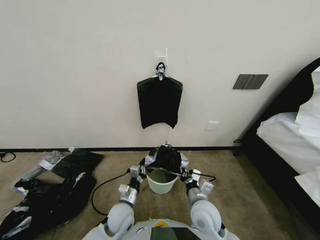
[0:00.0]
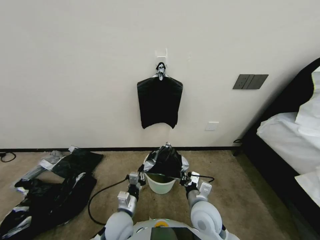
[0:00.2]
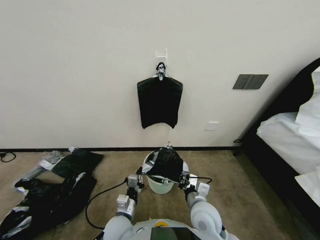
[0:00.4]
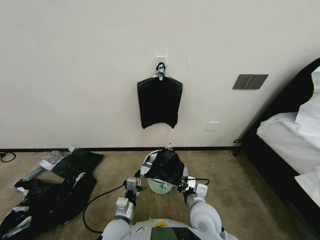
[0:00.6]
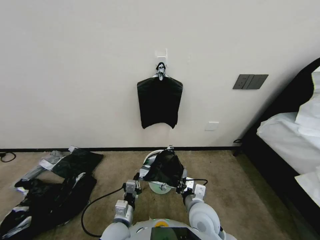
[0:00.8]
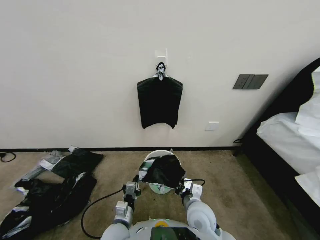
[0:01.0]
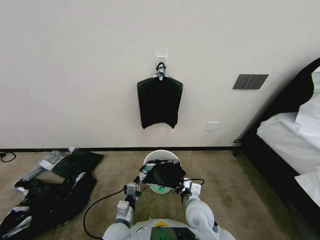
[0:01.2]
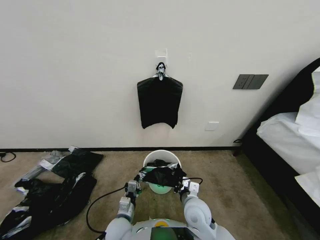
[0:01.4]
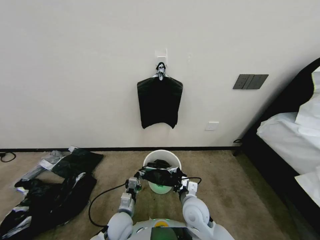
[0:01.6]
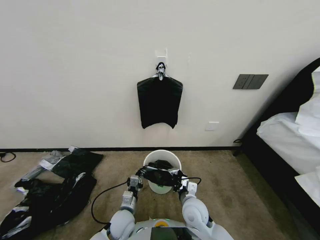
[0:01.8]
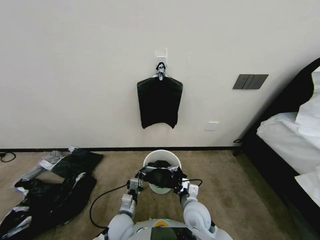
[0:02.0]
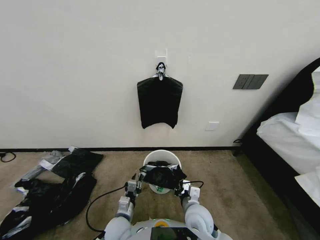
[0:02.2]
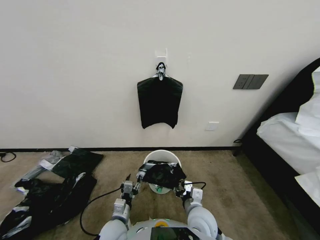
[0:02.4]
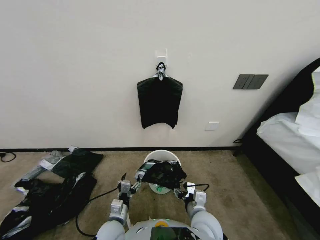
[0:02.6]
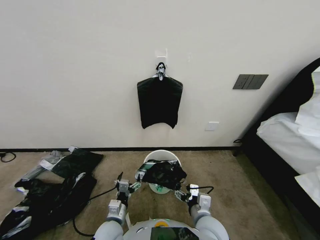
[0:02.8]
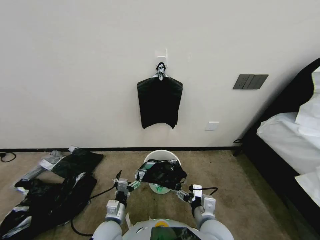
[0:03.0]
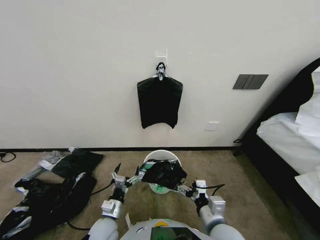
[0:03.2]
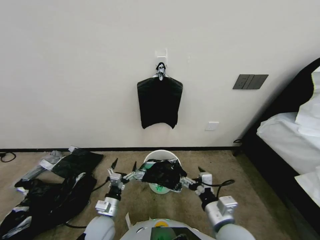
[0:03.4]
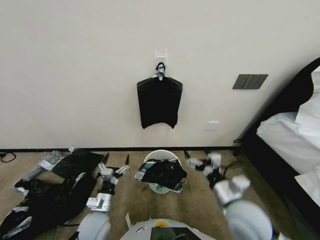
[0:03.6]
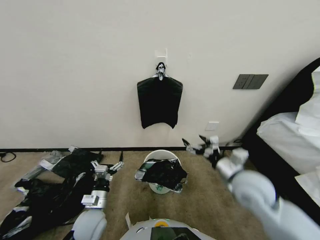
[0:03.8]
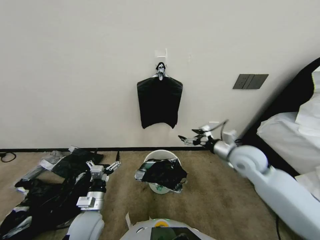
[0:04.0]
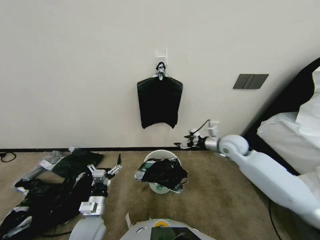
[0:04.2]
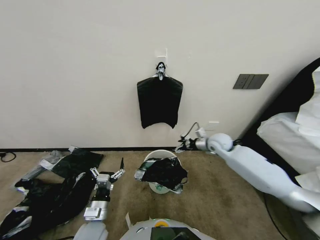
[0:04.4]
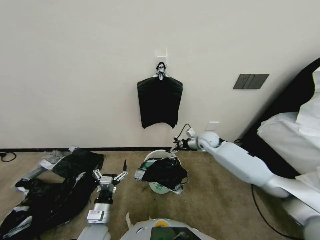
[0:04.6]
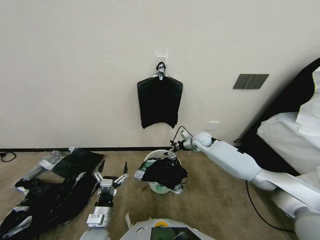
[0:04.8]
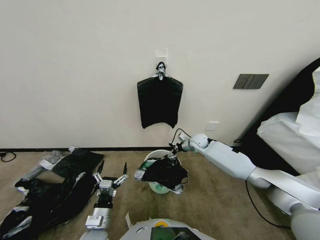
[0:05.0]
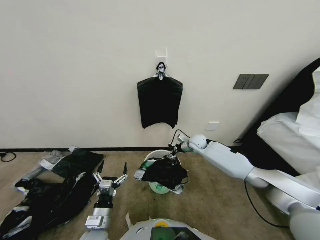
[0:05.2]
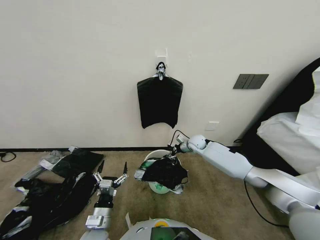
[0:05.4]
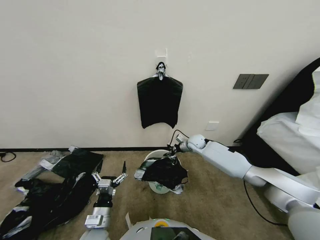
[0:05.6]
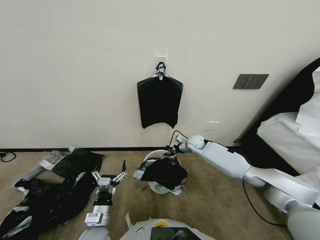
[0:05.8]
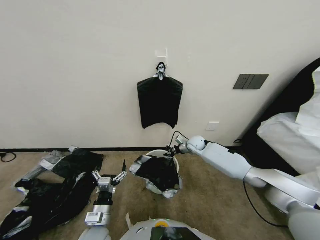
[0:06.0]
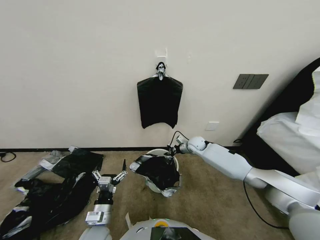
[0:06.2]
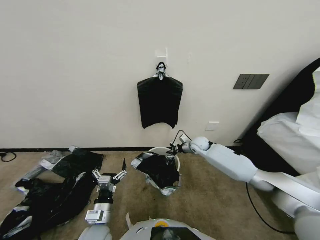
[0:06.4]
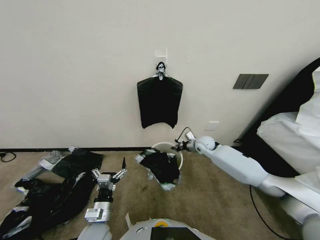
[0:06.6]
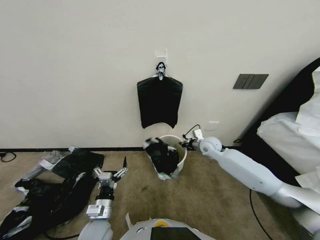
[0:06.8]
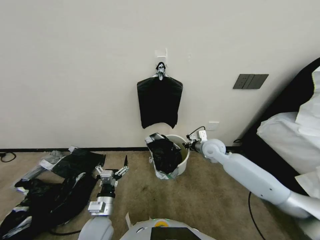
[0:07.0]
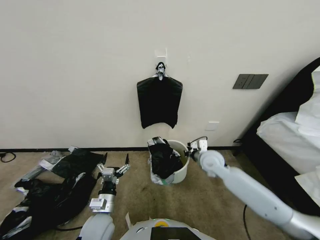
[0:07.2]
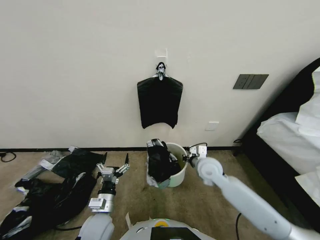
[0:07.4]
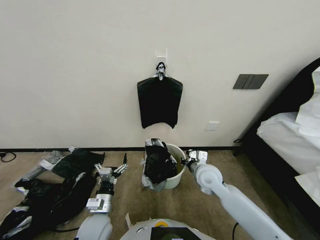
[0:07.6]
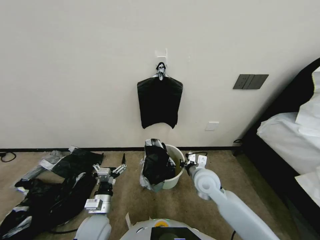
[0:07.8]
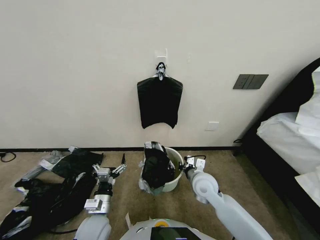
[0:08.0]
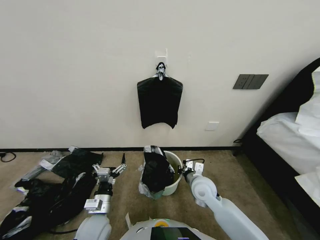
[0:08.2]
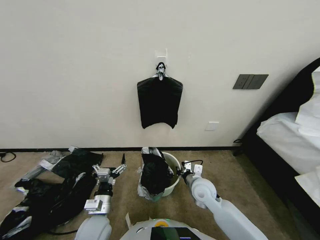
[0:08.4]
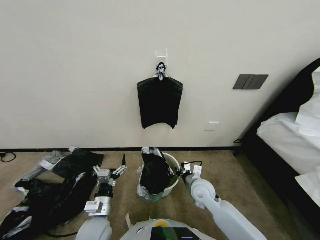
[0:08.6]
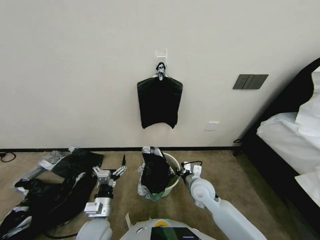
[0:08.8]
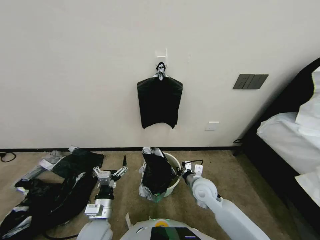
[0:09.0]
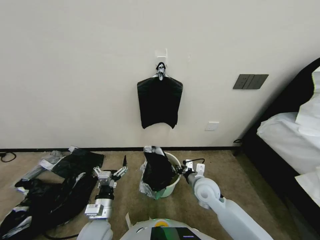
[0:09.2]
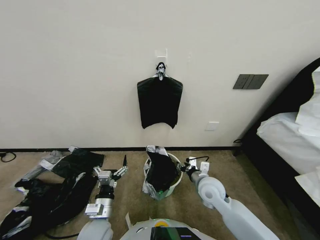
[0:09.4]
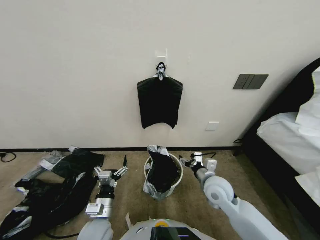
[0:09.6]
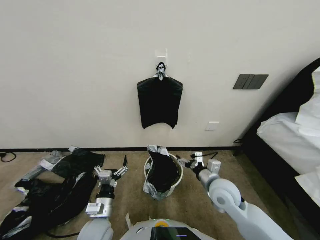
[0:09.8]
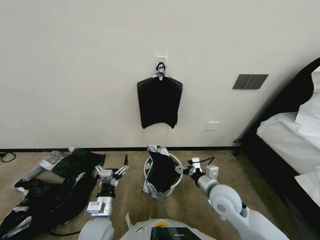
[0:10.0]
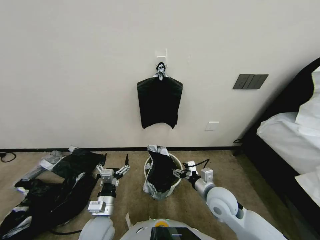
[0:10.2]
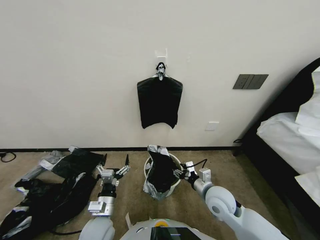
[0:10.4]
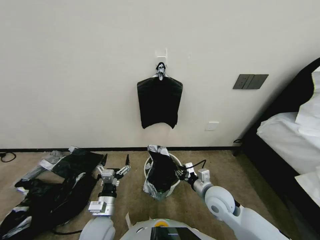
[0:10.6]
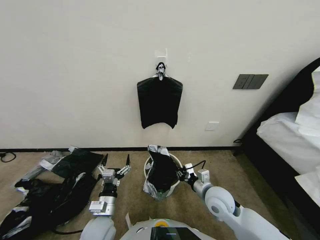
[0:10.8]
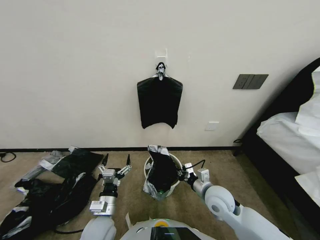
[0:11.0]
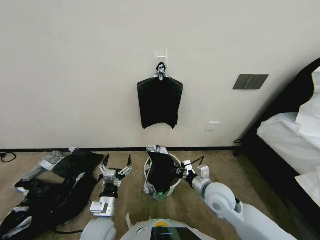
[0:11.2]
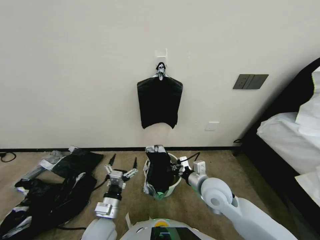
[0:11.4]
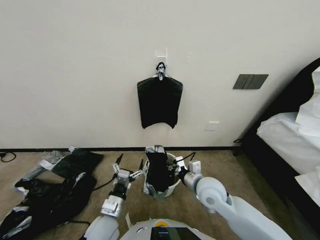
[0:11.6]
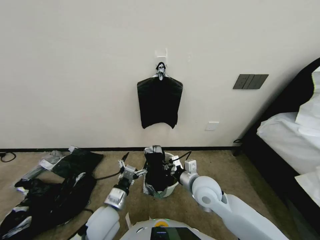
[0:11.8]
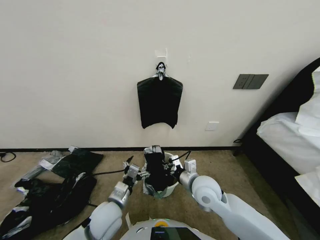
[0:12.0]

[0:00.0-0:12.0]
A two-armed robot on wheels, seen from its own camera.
Task of the whole recording: Place a trash bag onto the trash bin.
0:00.0 to 0:01.6: The left gripper changes place by about 5 cm.
0:01.6 to 0:03.0: The right gripper moves backward, roughly 5 cm, and opens. The left gripper shifts by roughly 5 cm, and opens its fingers.
0:03.0 to 0:04.4: The left gripper shifts about 5 cm to the left; the right gripper heads forward and to the right, covering approximately 35 cm.
0:04.4 to 0:06.0: The right gripper heads downward, forward and to the left, covering about 15 cm, and closes.
0:06.0 to 0:07.6: The right gripper shifts roughly 20 cm backward.
0:07.6 to 0:09.0: The right gripper goes approximately 5 cm downward.
0:09.0 to 0:10.4: The right gripper ends up approximately 5 cm from where it was, and opens.
0:10.4 to 0:12.0: The right gripper is displaced to the left by roughly 5 cm, and closes up.

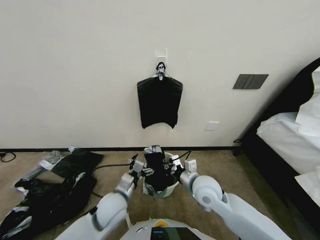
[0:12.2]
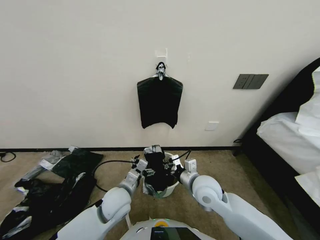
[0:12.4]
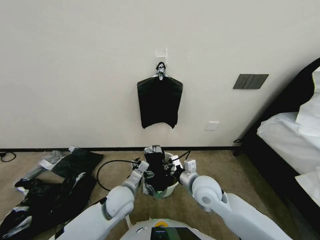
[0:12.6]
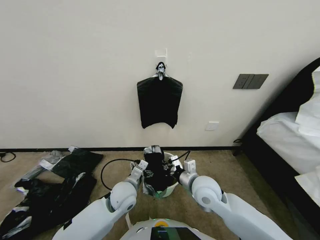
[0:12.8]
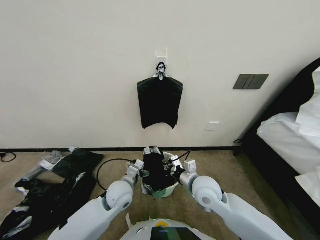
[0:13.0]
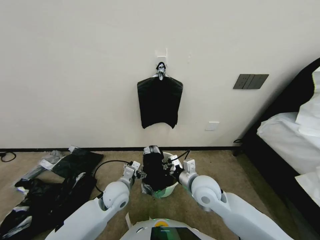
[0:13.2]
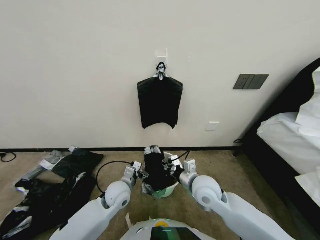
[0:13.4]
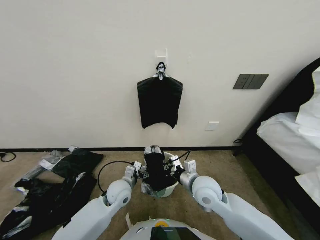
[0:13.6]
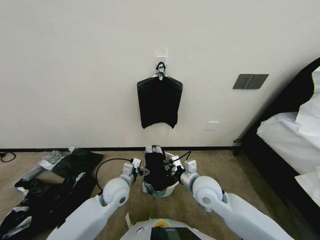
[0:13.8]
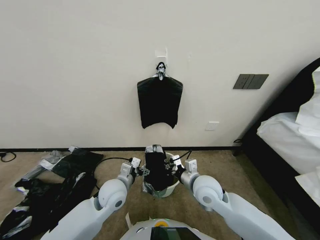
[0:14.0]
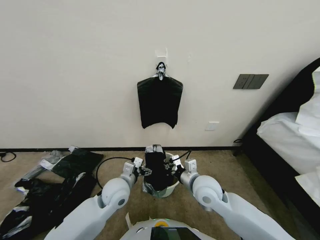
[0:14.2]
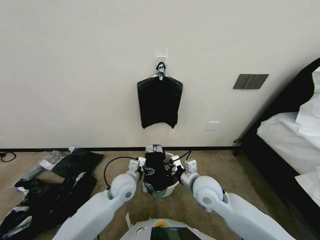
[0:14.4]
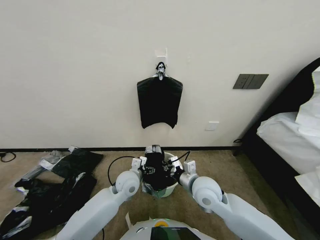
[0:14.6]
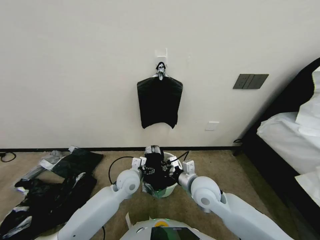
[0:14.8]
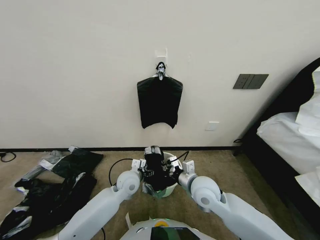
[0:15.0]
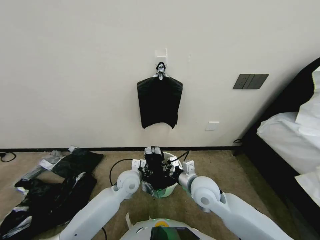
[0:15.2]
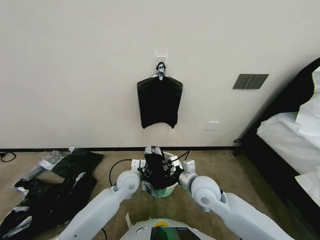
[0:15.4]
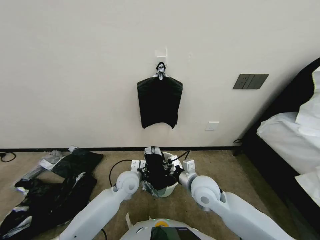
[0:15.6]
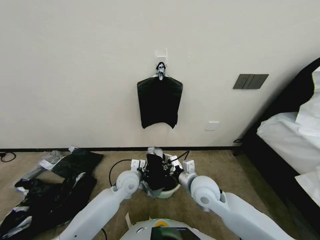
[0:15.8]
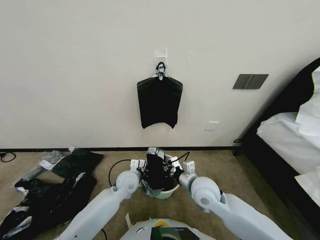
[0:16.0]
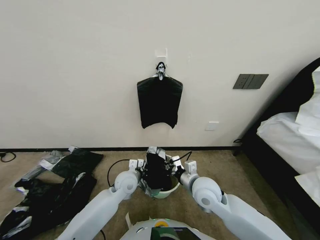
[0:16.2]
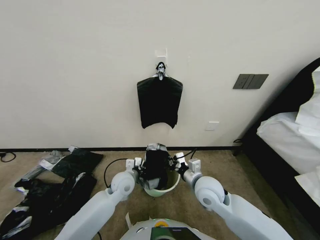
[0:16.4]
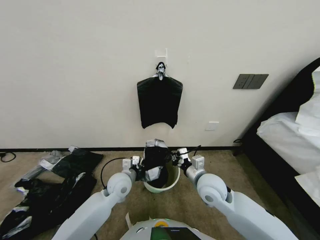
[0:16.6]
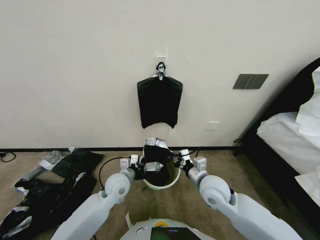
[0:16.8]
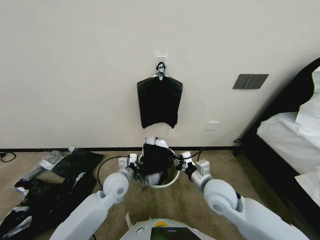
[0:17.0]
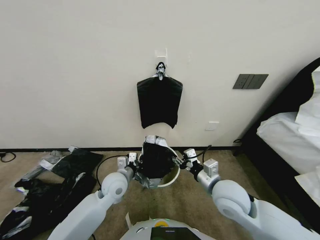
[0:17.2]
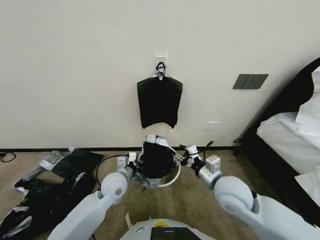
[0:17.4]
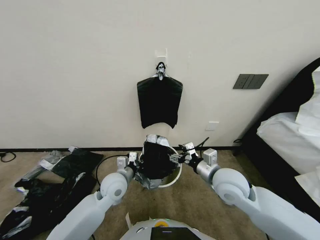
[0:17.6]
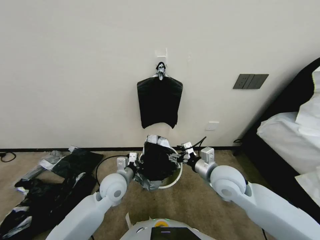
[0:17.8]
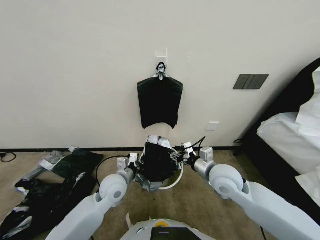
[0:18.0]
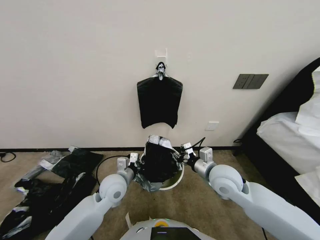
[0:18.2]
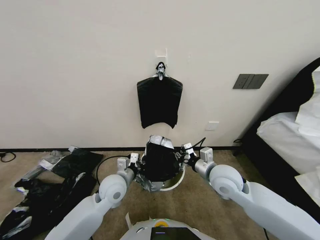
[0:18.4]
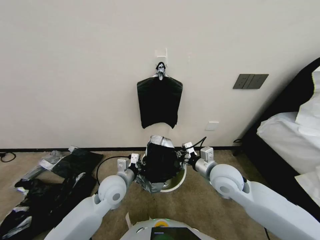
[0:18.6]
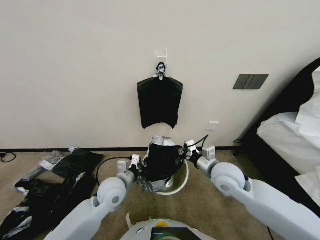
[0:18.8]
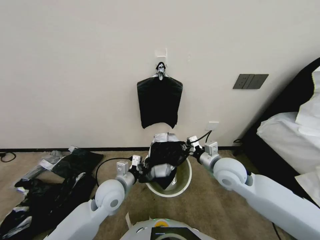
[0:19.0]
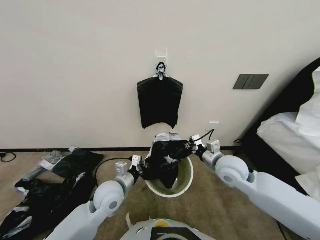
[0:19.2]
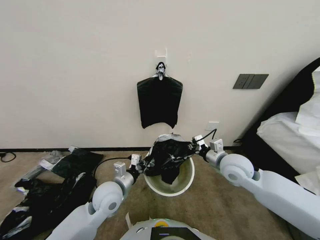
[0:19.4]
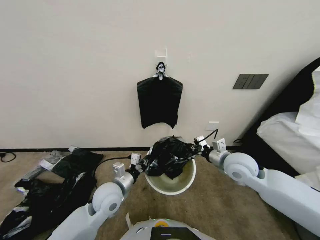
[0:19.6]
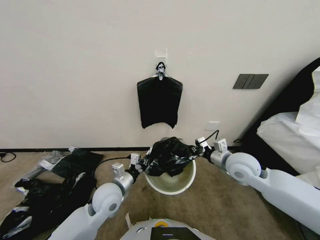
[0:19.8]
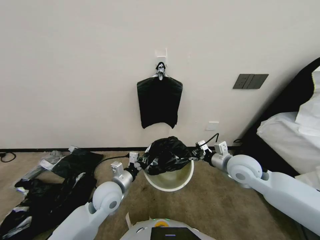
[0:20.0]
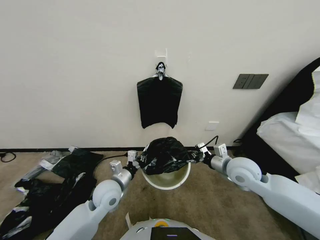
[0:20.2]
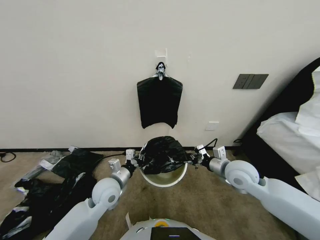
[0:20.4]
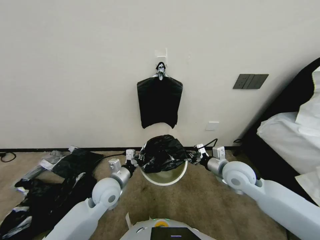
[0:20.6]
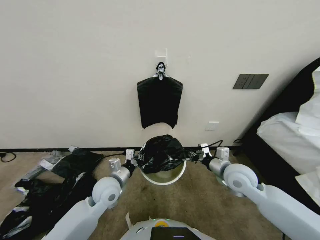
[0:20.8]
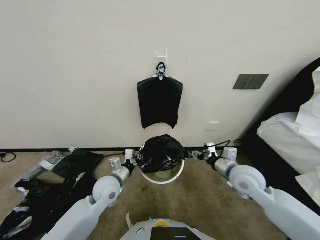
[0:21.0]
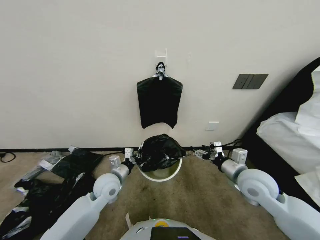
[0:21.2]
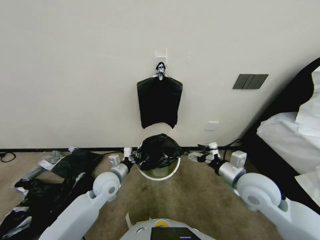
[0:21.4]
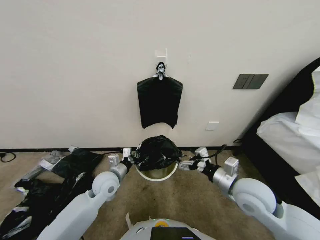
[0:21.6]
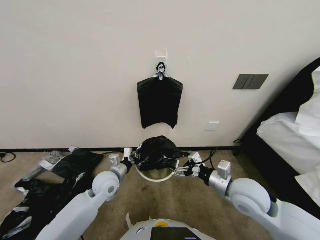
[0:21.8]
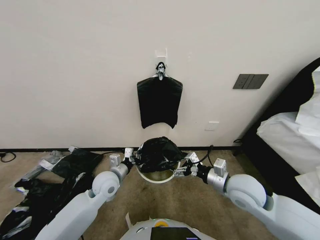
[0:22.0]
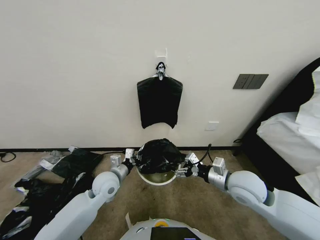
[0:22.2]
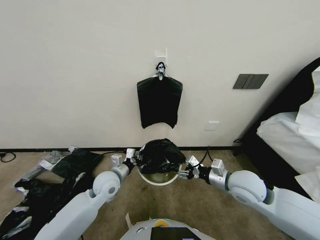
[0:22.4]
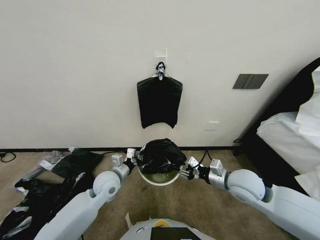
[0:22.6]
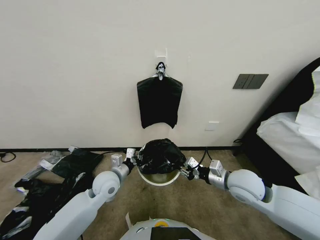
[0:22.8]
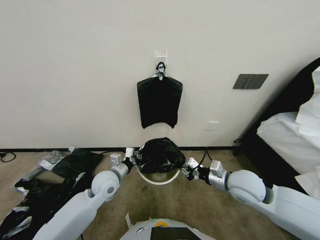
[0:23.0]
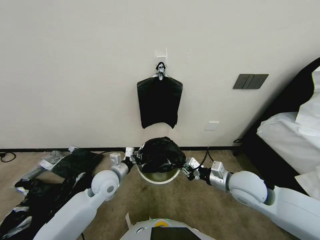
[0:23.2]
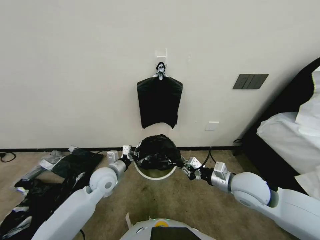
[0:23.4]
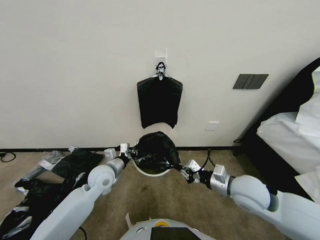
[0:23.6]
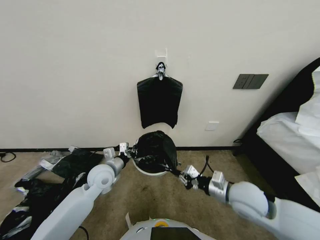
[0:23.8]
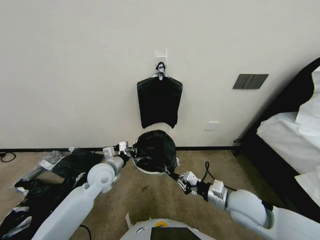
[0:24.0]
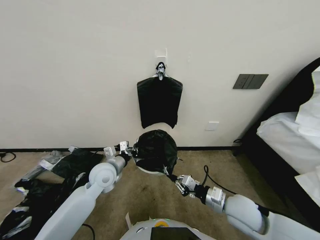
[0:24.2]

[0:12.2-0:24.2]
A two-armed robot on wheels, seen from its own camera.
Task of the whole recording: Place a trash bag onto the trash bin.
0:12.2 to 0:13.8: The left gripper goes about 10 cm forward.
0:13.8 to 0:15.2: There are only small adjustments of the grippers.
0:15.2 to 0:16.6: The left gripper closes up.
0:16.6 to 0:18.2: The right gripper ends up about 5 cm from where it was, and opens. The left gripper ends up some 5 cm from where it was.
0:18.2 to 0:19.8: The right gripper moves to the right, approximately 5 cm, and closes.
0:19.8 to 0:21.2: The right gripper changes place by some 5 cm, and opens up.
0:21.2 to 0:22.6: The right gripper opens, then closes once more.
0:22.6 to 0:24.2: The right gripper heads backward and downward, covering about 10 cm, and closes.
